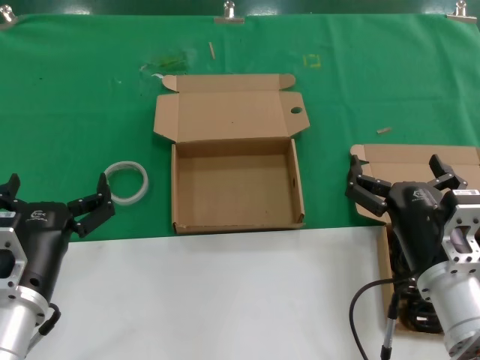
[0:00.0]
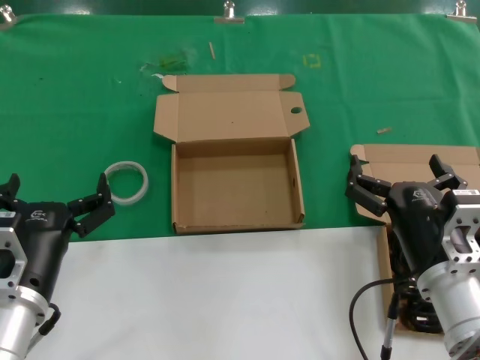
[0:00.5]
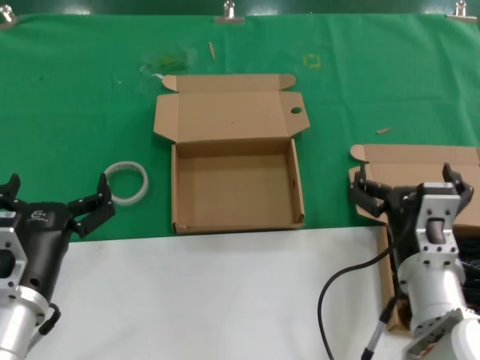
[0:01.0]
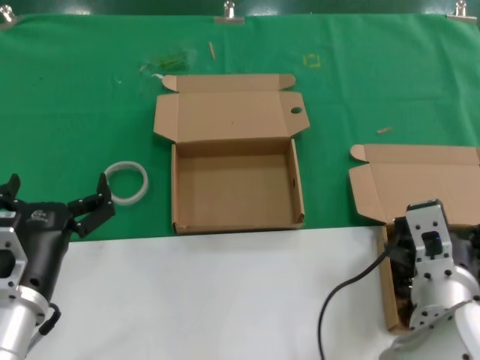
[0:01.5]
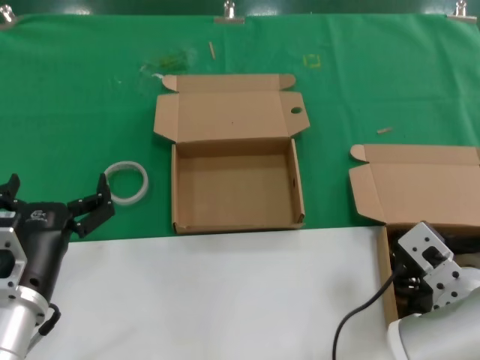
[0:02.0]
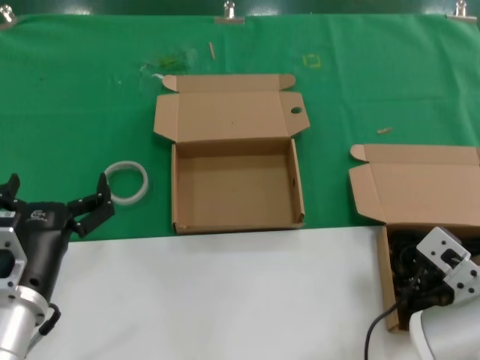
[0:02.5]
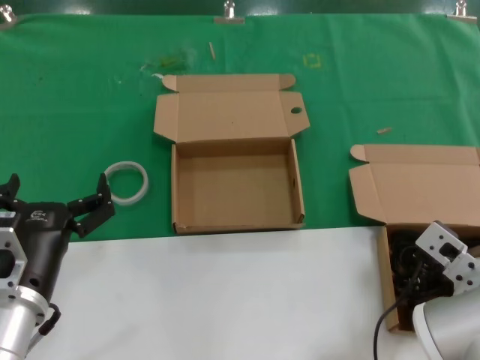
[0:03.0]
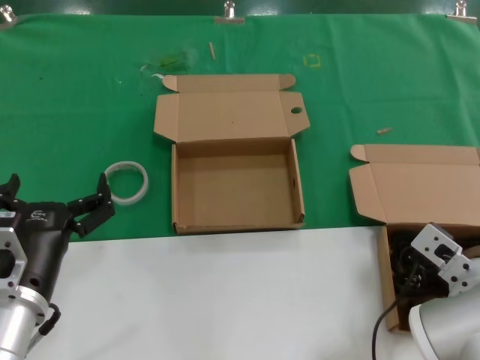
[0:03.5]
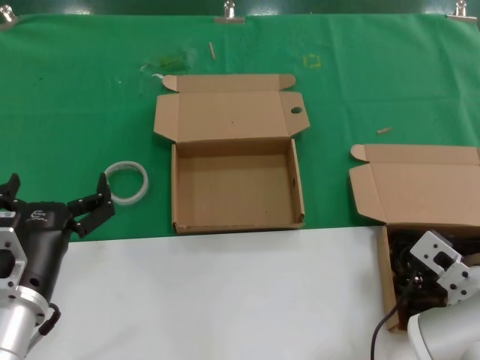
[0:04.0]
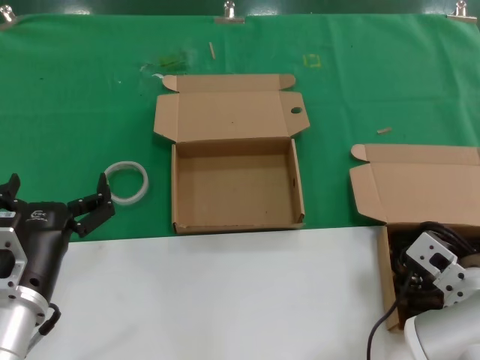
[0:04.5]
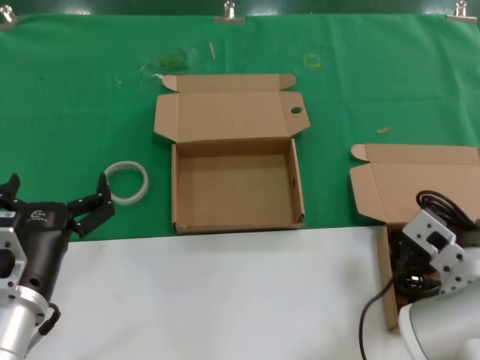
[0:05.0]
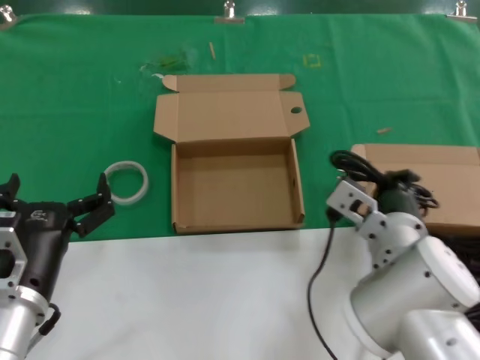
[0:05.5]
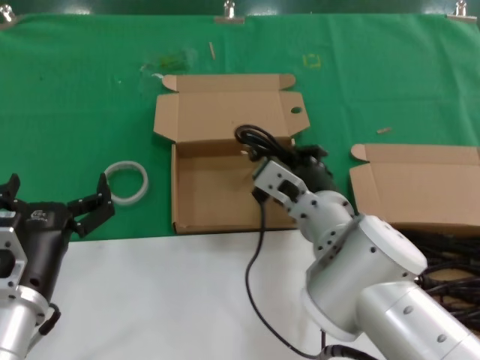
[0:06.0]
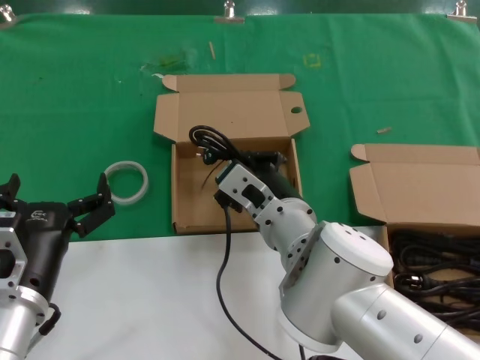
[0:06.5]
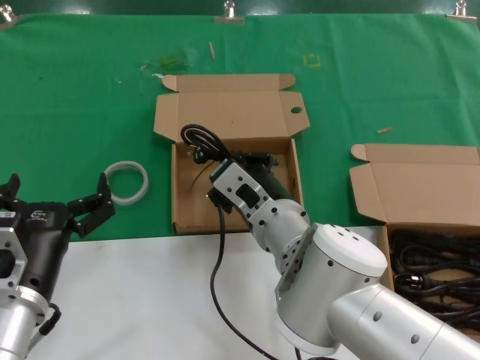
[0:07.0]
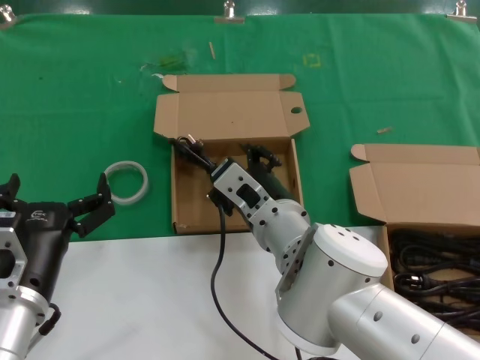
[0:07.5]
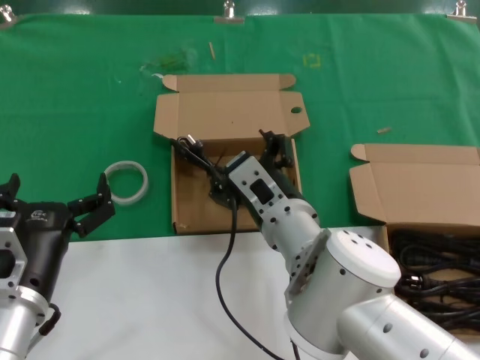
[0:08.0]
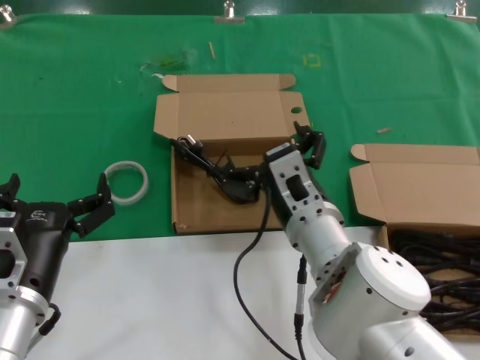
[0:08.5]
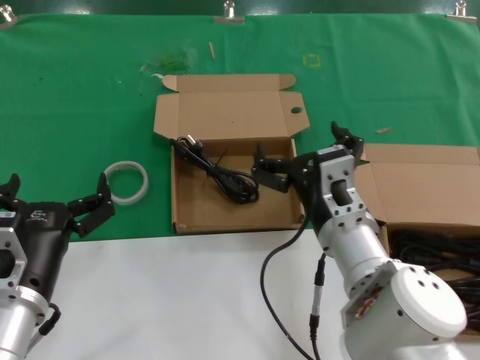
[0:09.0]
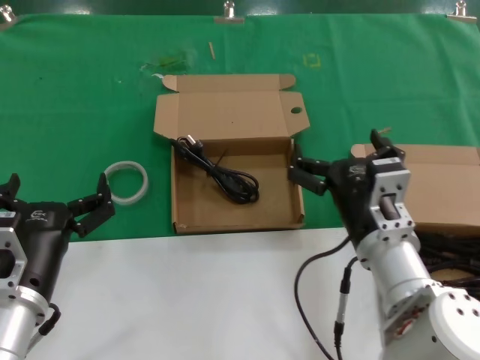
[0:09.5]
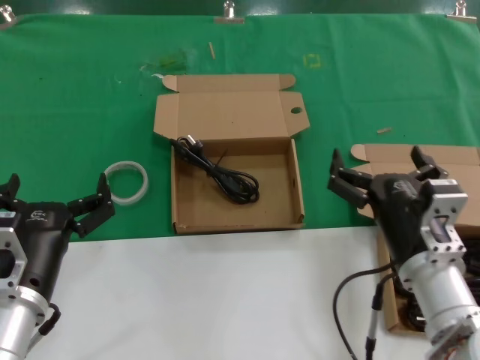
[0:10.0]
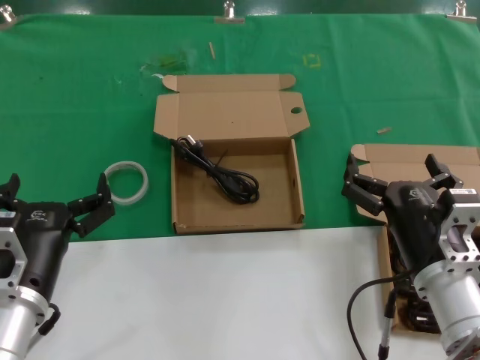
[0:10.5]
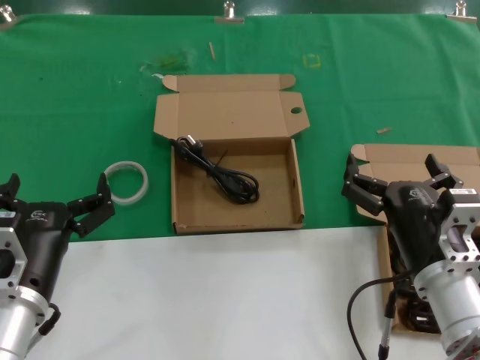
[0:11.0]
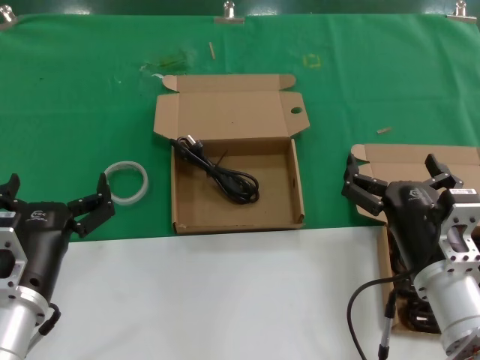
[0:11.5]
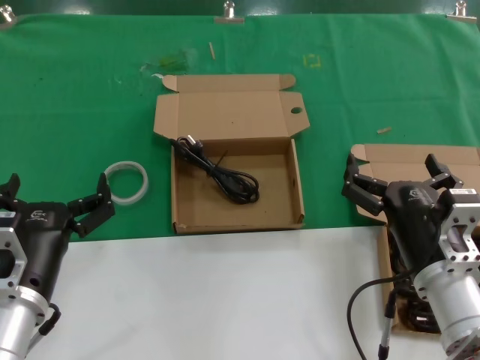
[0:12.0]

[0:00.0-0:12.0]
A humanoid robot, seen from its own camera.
Task of the whole recording: take the parts from the box containing them and put them into an empty box.
Step, 0:00.0 to 0:04.0: Grasp the data cable.
Step, 0:04.5 to 0:07.5: Place the data cable in the another box.
0:00.0 to 0:02.0: The right hand changes place by some 5 cm.
0:02.0 to 0:04.0: The right hand shifts by about 5 cm.
0:04.0 to 0:06.0: The right hand shifts about 15 cm to the left and forward.
0:08.0 to 0:10.0: The right hand moves to the right and backward, some 15 cm.
0:10.0 to 0:12.0: The hands move only a little.

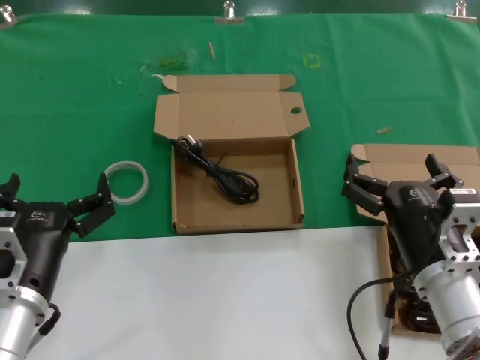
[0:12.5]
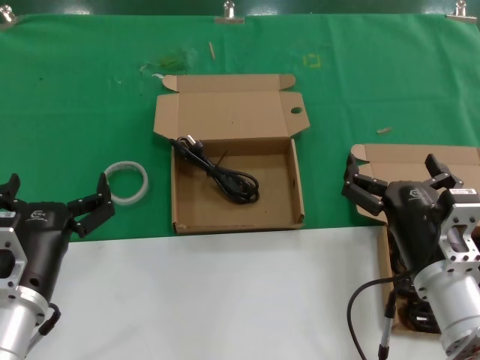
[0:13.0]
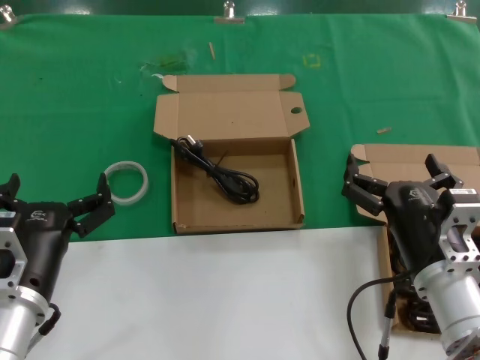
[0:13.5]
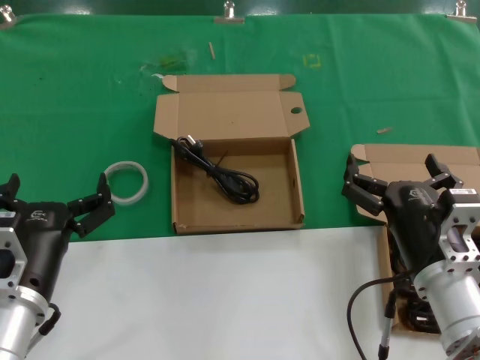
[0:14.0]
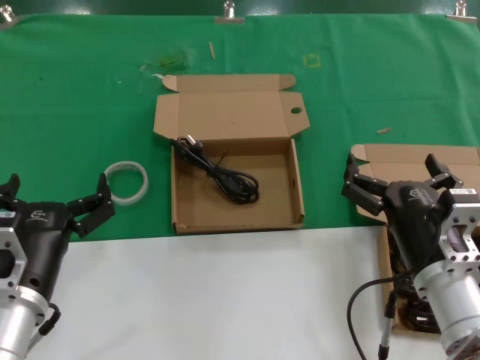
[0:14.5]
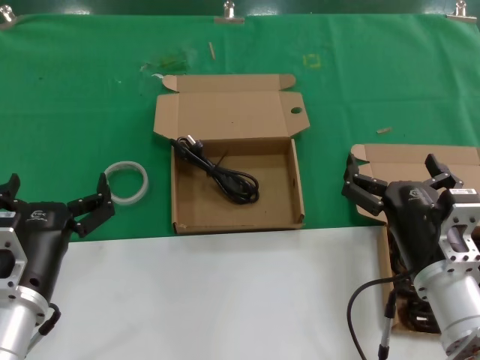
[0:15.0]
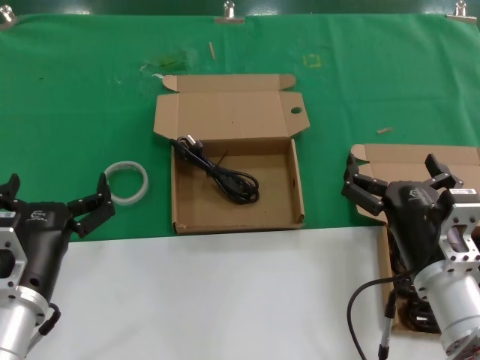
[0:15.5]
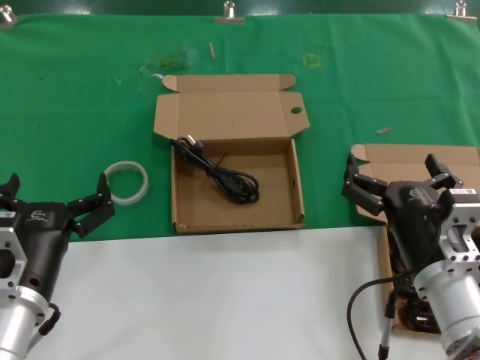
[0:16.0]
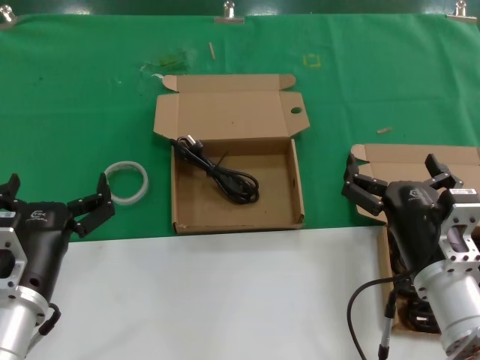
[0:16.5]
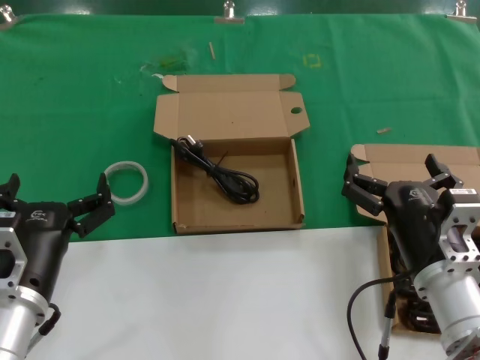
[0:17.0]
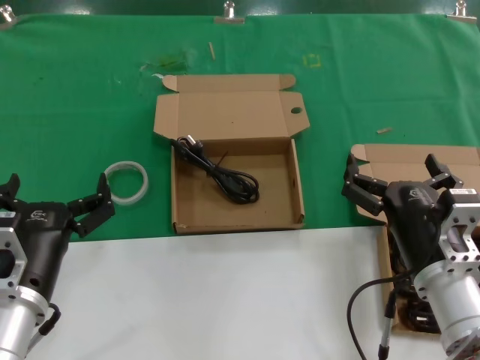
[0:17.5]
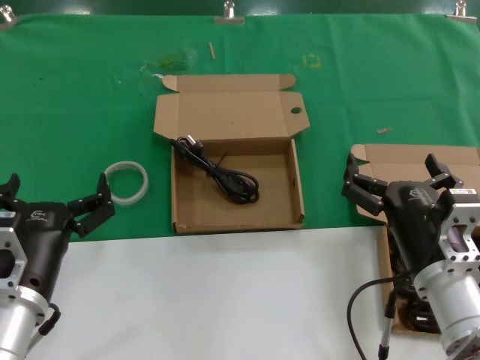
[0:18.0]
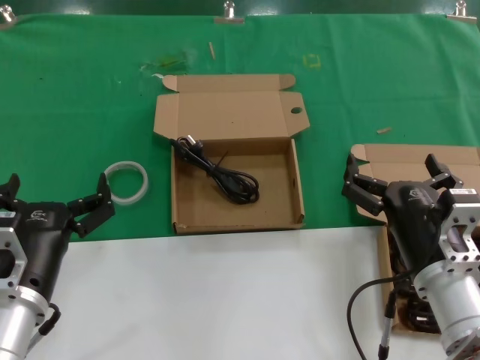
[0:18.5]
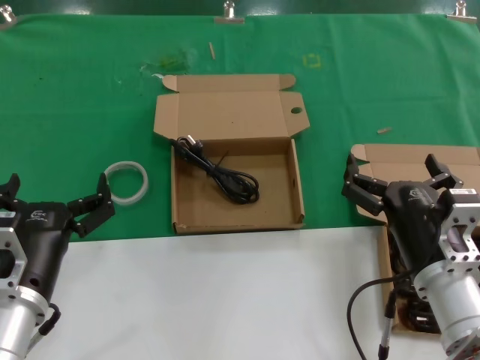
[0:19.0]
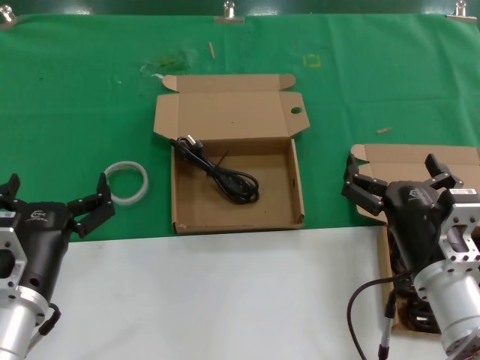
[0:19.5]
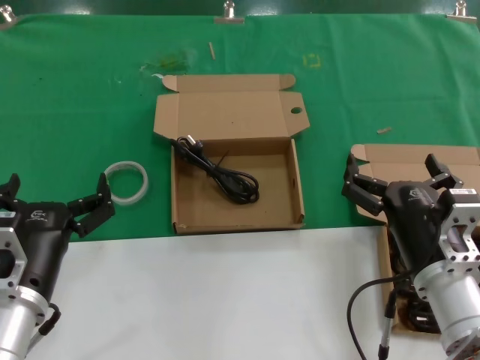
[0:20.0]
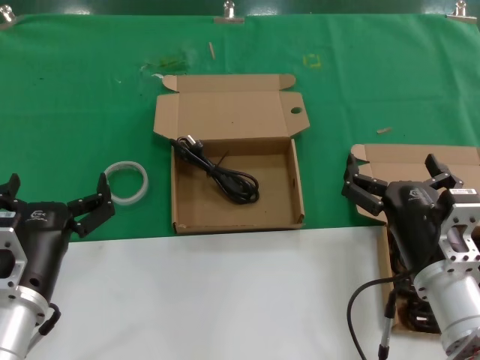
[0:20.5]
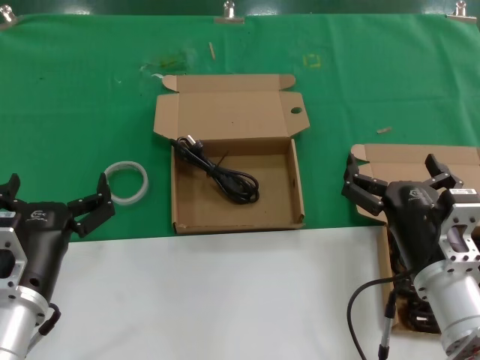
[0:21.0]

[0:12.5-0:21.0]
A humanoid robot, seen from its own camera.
Task of the whole recording: take the parts from the box containing them and put them into an empty box.
0:12.5 to 0:21.0: Both hands stay about where they are.

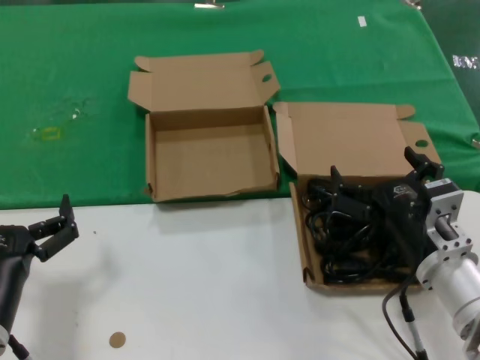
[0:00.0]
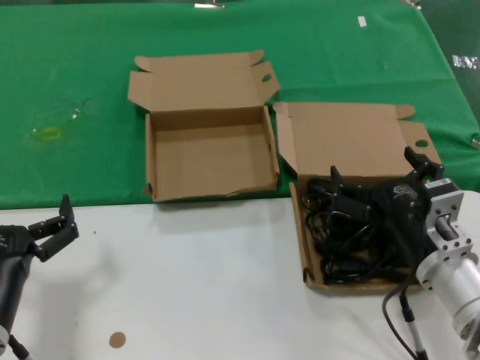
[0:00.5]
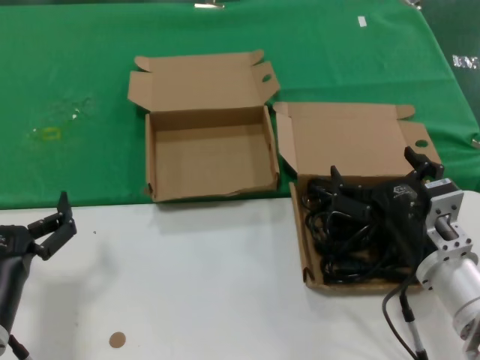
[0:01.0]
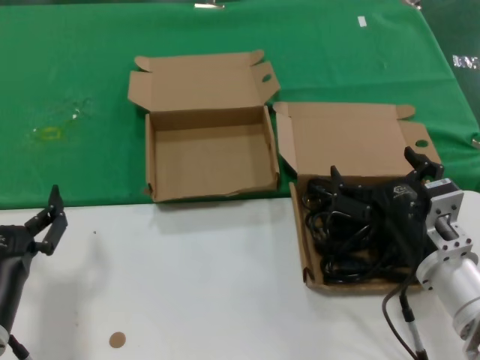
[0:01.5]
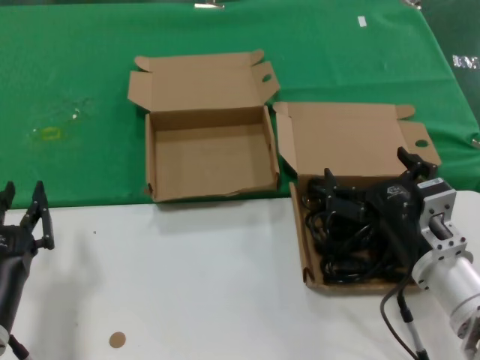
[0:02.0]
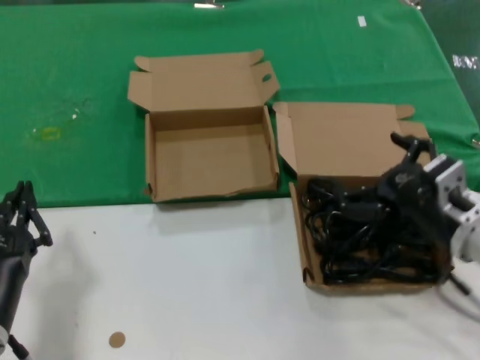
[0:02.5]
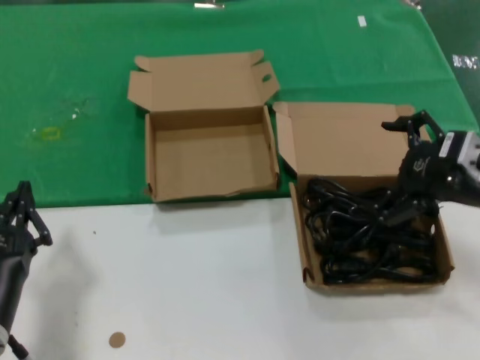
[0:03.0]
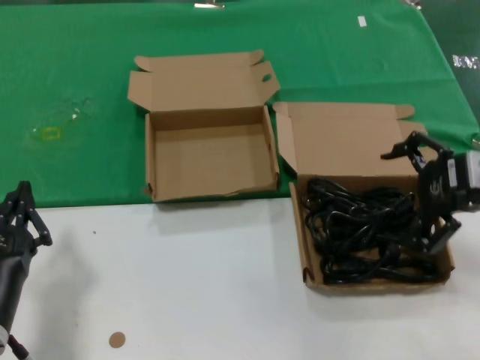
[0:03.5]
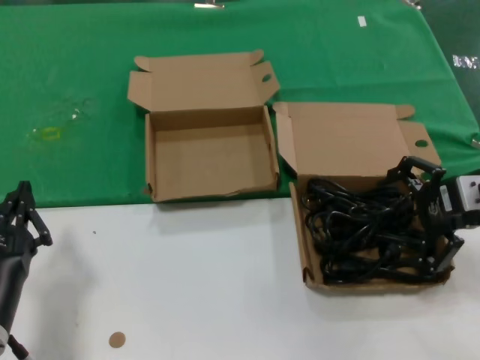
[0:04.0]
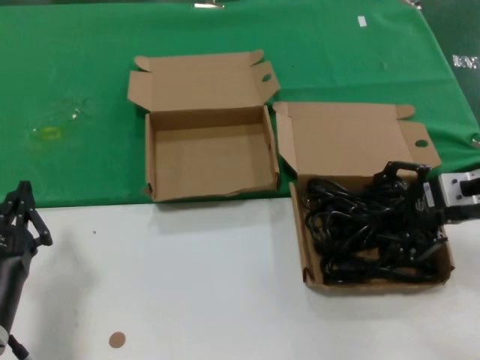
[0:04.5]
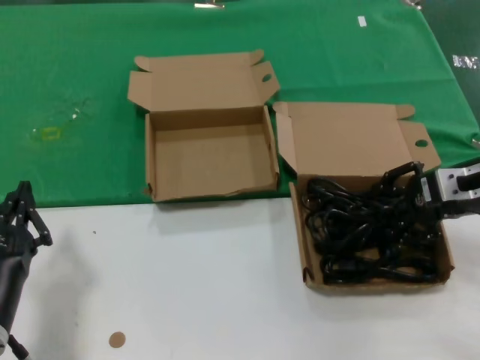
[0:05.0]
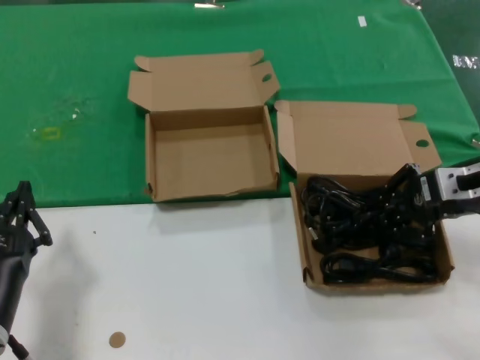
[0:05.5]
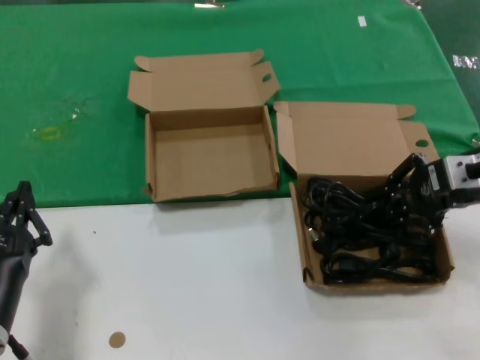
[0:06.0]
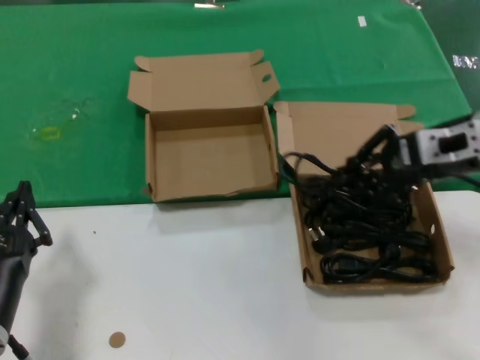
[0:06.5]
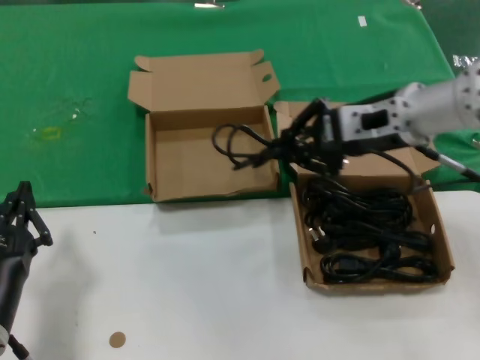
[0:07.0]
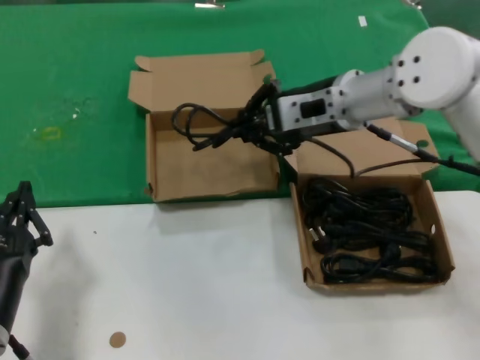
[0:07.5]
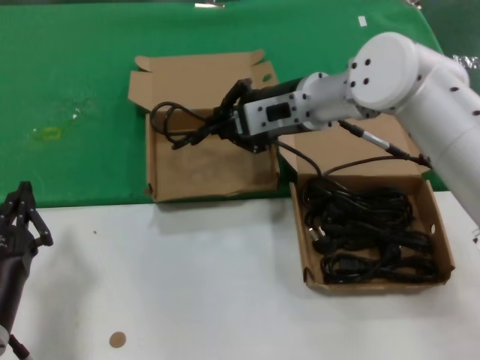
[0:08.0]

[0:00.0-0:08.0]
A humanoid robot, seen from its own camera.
Task of the whole recording: take the parts from the box containing them and put them into an empty box.
Step, 0:00.0 to 0:05.0: Grasp the data cable.
0:00.0 to 0:02.0: Both hands stay put.
0:02.0 to 0:04.0: The right hand travels upward, to the right and forward by approximately 20 cm.
0:04.0 to 0:06.0: The hands stay close to where they were, moving slightly.
0:06.0 to 0:08.0: The right hand goes some 25 cm to the left and forward.
